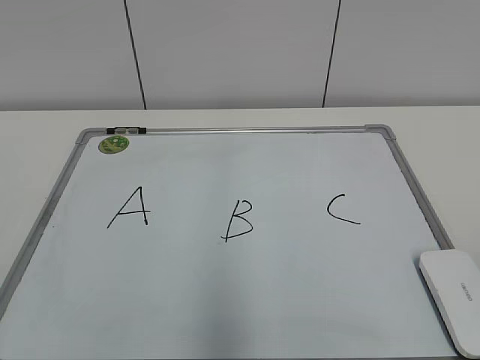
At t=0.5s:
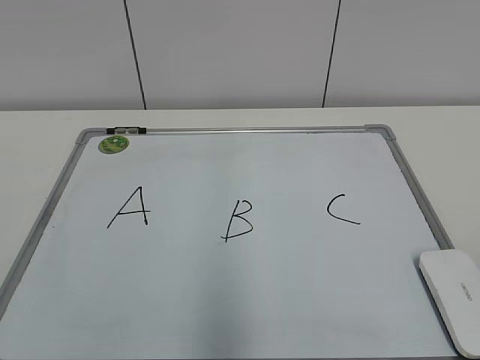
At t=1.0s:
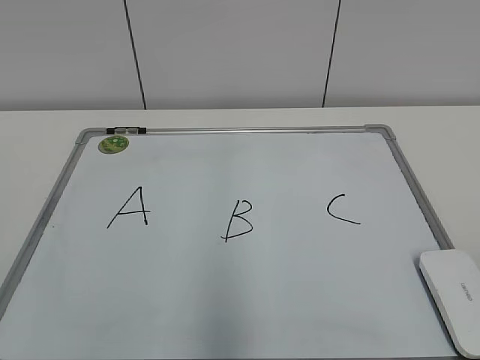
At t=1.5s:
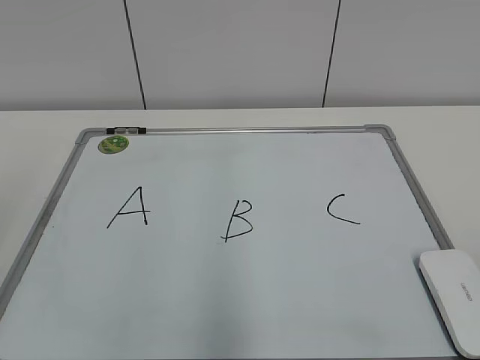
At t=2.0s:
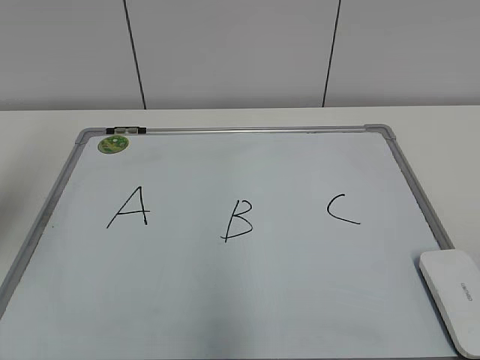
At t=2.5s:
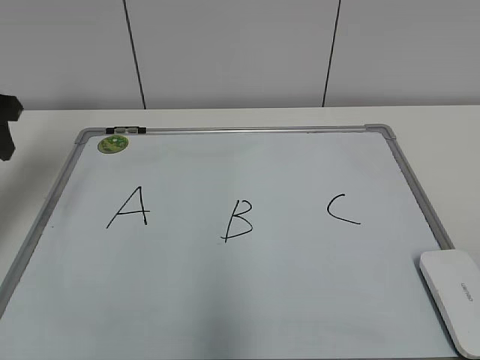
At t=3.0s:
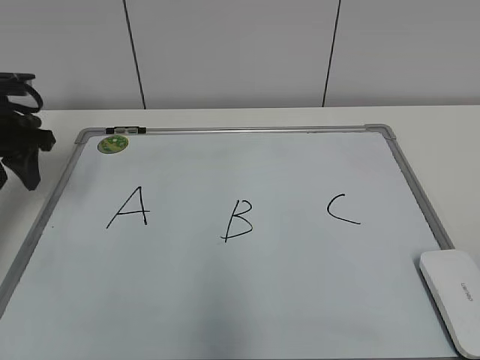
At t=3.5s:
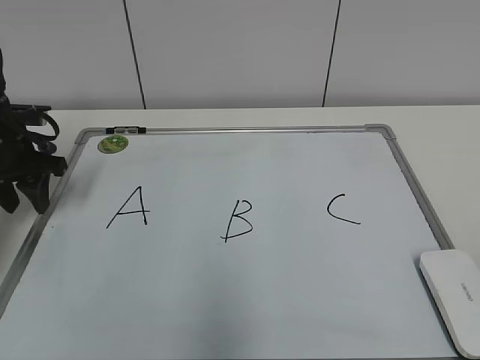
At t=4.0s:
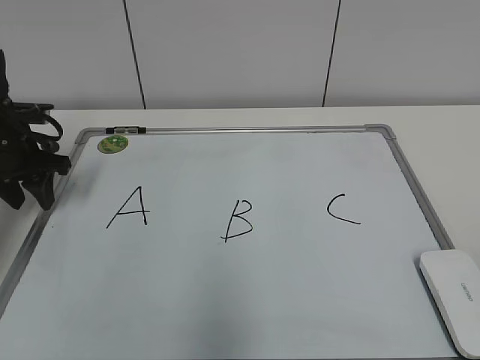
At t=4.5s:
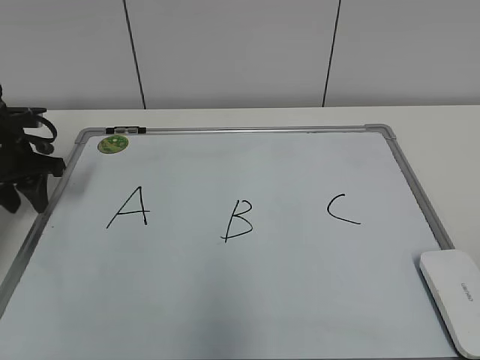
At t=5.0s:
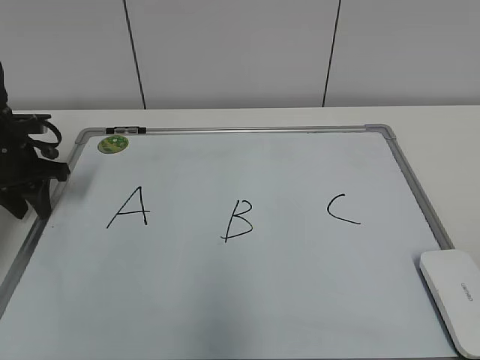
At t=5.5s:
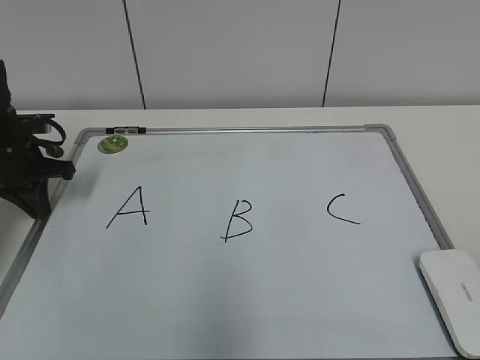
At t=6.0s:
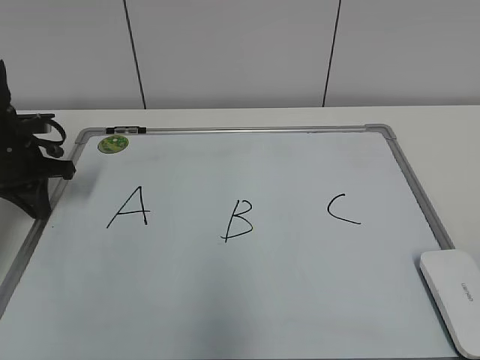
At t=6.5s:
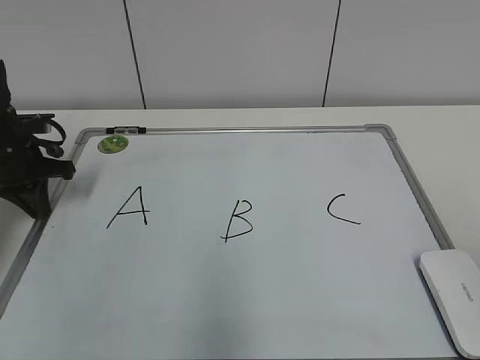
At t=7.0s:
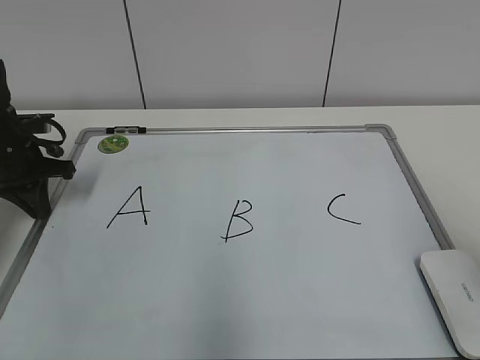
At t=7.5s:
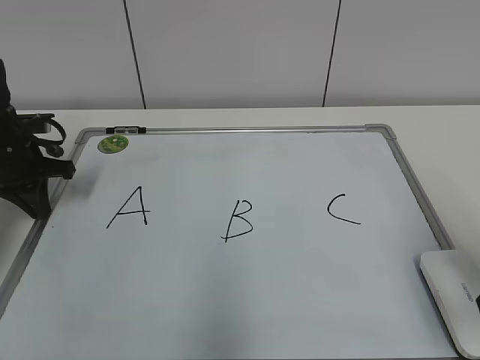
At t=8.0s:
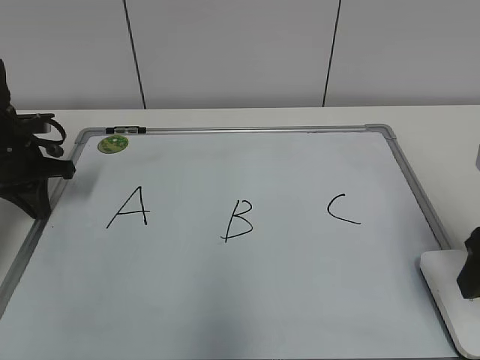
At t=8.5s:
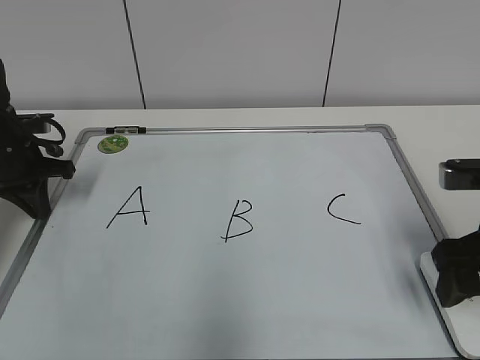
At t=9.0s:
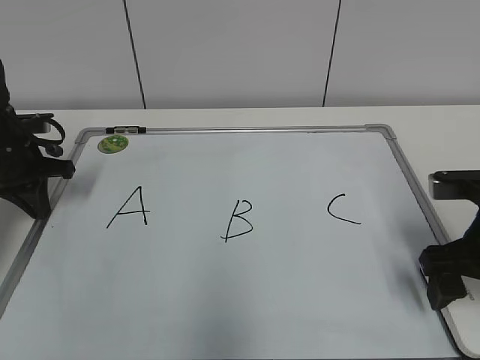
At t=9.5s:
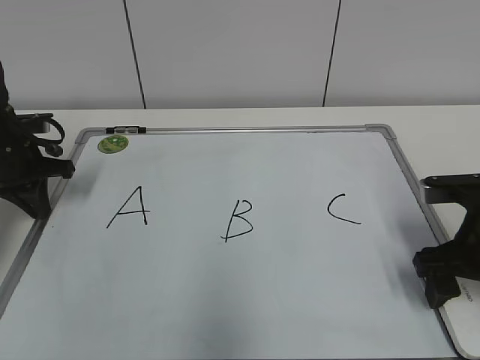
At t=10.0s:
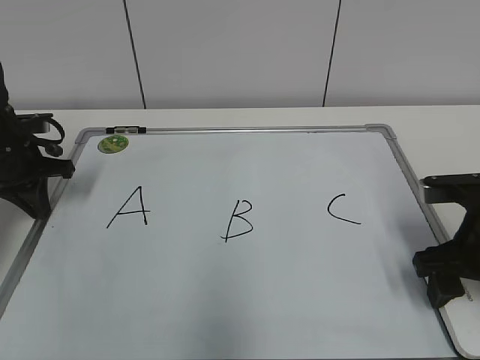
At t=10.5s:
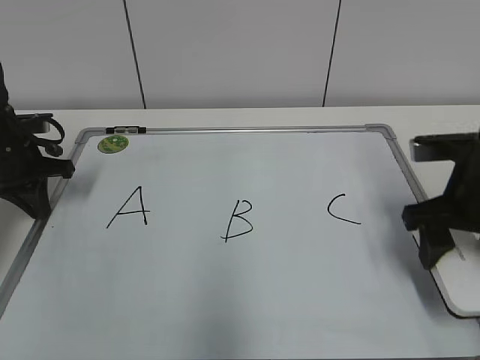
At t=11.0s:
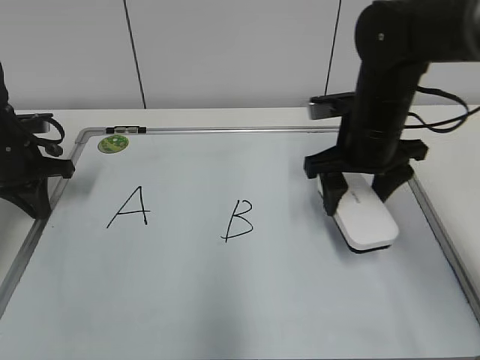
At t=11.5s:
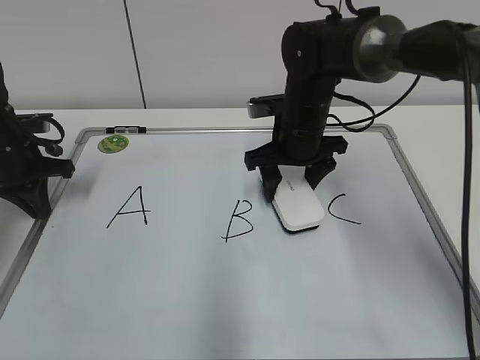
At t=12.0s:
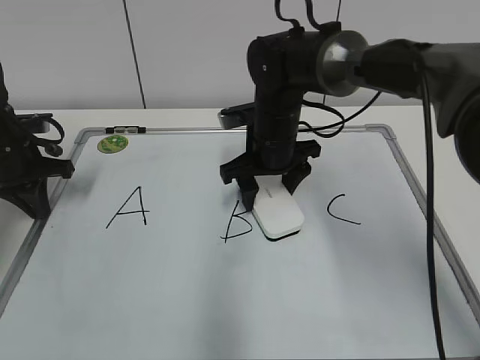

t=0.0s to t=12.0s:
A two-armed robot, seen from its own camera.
Task of the whole recording: pick up the eraser on the blackboard and erase the letter "B".
Step, t=0.0s to t=5.0s: Hold the drawing board steady with your left hand.
Step, t=5.5s to t=9.5s: Grab the eraser with your right hand.
t=2.0s to t=4.0s: The left gripper goes roughly 25 cm forward and downward.
t=4.0s to t=6.0s: The left gripper closes its fingers.
t=6.0s to t=8.0s: The right gripper moves forward, some 20 cm.
t=8.0s to t=10.0s: The right gripper is displaced downward by some 5 cm, and opens and closes again.
t=10.0s to t=12.0s: The right gripper goes about 25 cm to the left and forward.

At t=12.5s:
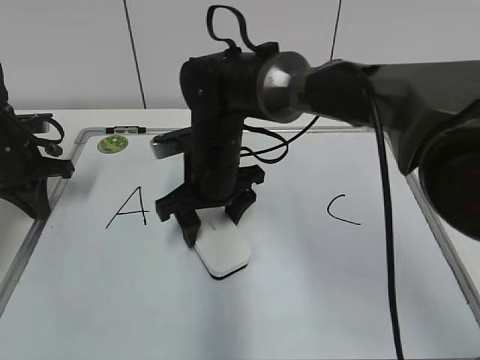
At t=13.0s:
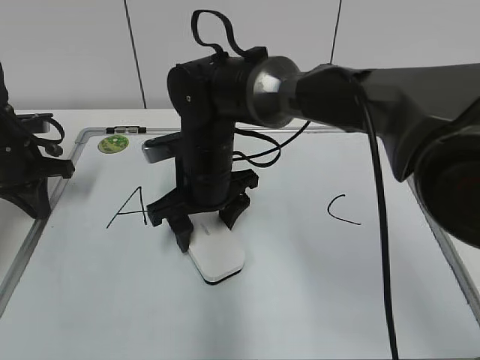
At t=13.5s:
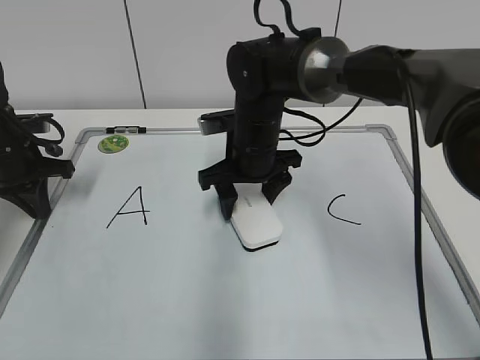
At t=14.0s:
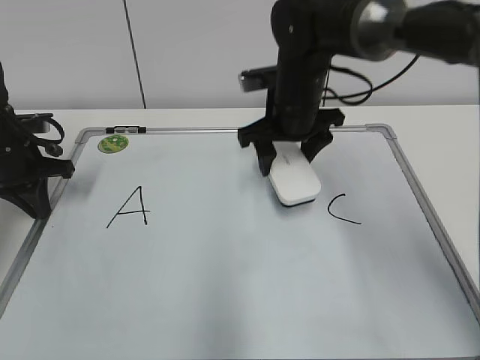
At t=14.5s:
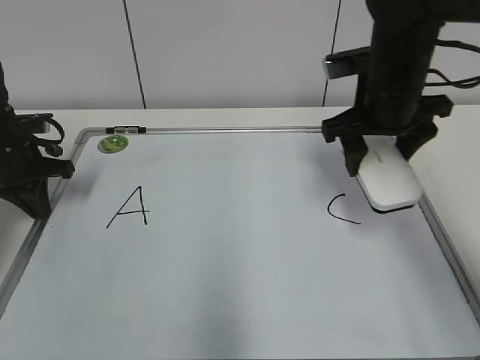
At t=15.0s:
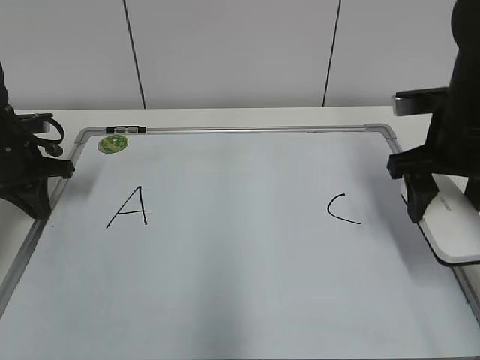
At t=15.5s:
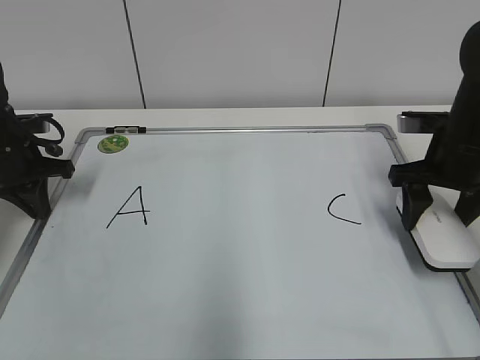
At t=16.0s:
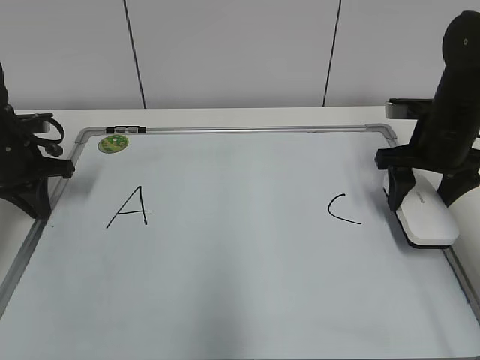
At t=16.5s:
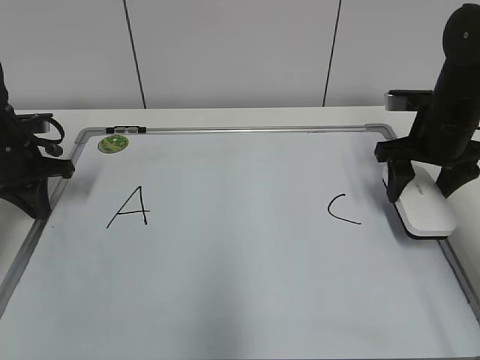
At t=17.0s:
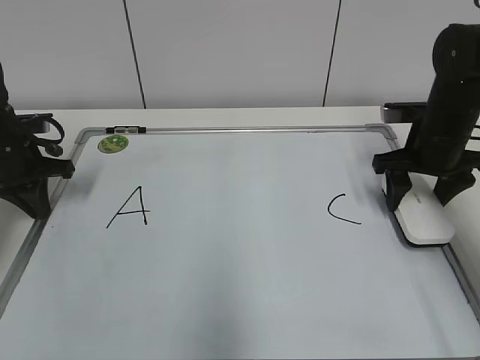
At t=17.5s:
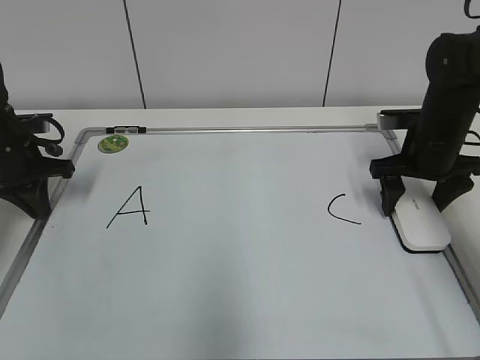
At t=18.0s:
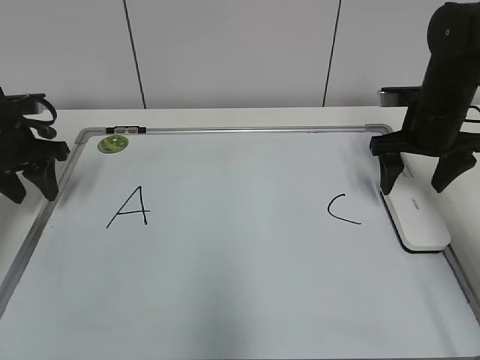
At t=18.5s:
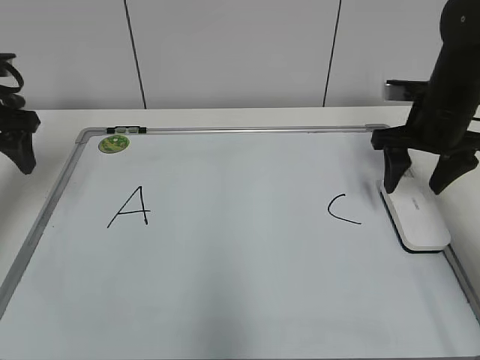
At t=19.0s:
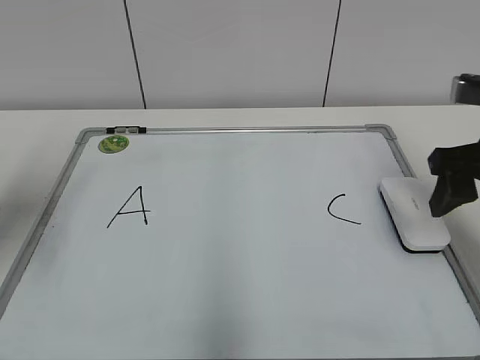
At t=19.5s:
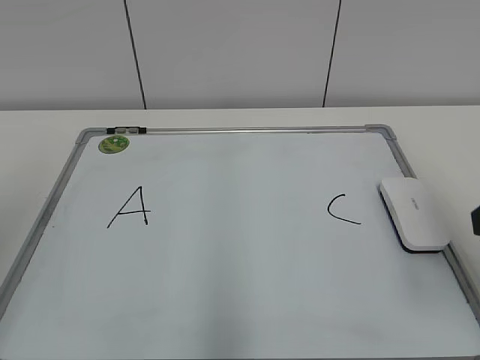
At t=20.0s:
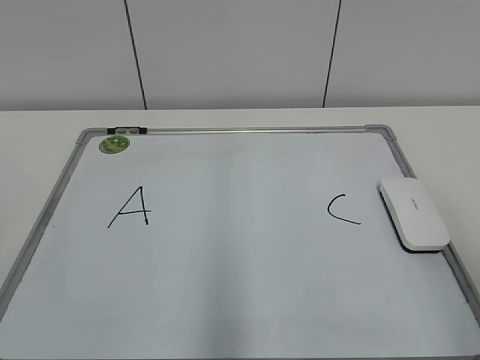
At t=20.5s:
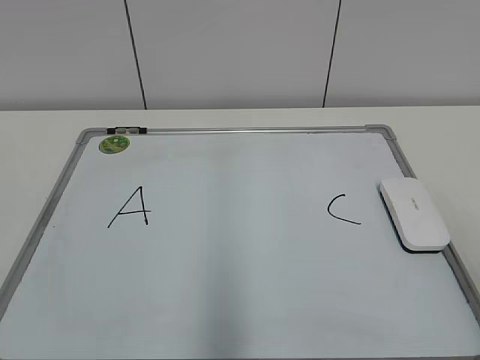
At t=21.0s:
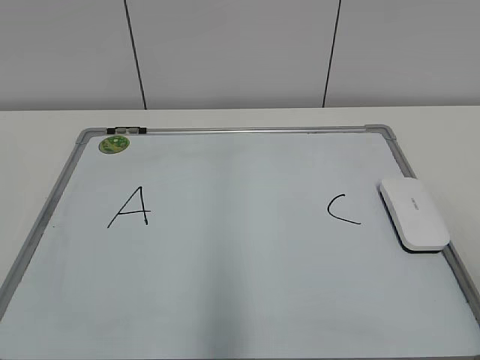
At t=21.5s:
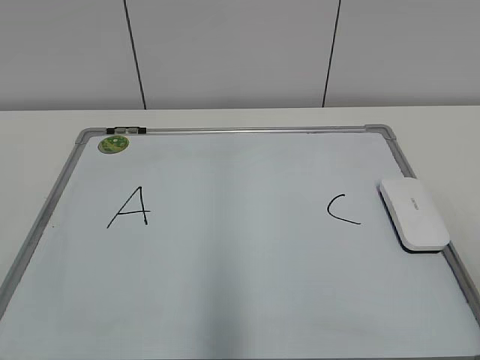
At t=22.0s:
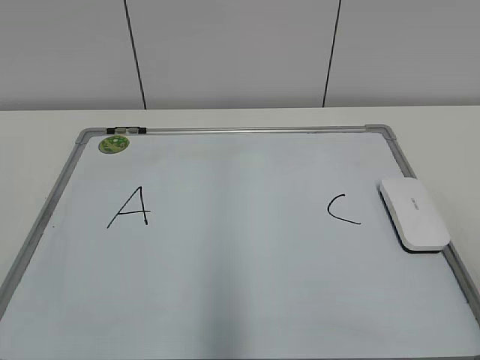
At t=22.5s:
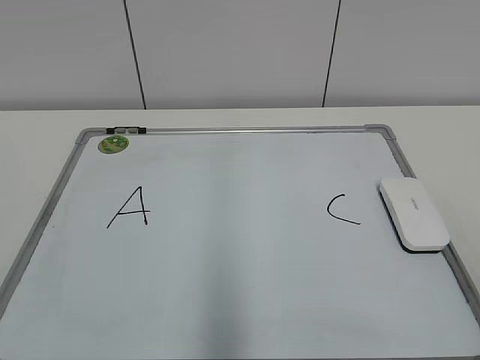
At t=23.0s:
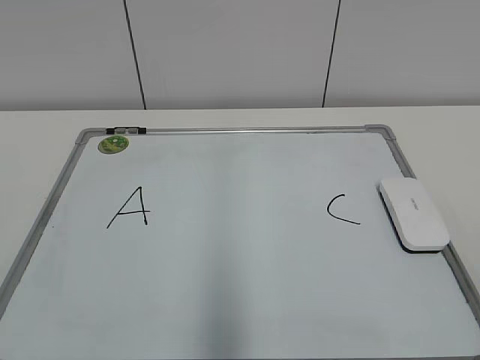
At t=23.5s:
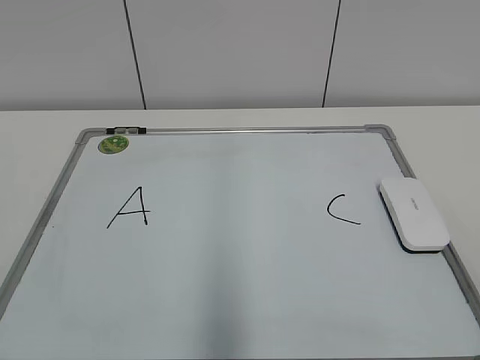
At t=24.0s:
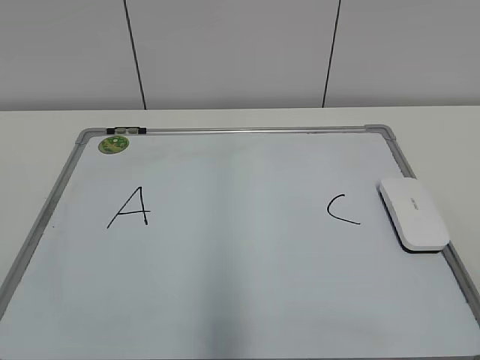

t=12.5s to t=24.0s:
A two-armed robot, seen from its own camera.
Task of the whole recording: pick up the eraser on the blackboard and erase the letter "B".
t=12.5s to t=14.5s: The right gripper travels to the right and upward by roughly 20 cm.
t=14.5s to t=16.5s: The right gripper heads to the right and downward, covering roughly 10 cm.
t=16.5s to t=18.5s: The right gripper opens and closes again, while the left gripper heads upward, covering approximately 10 cm, and opens up.
t=18.5s to t=20.0s: The two grippers go some 35 cm backward.
